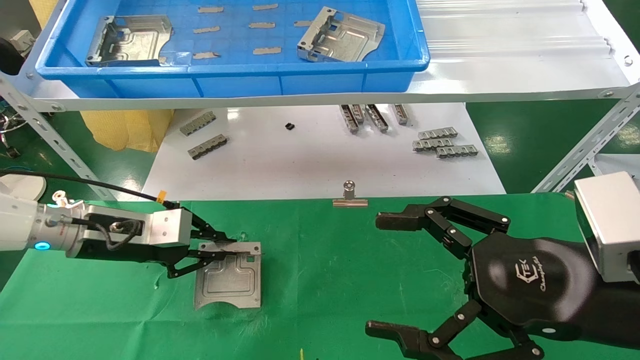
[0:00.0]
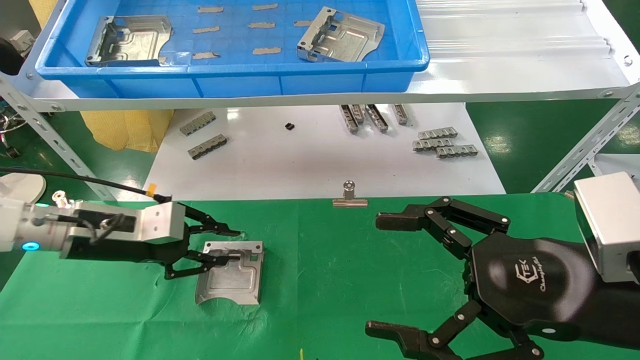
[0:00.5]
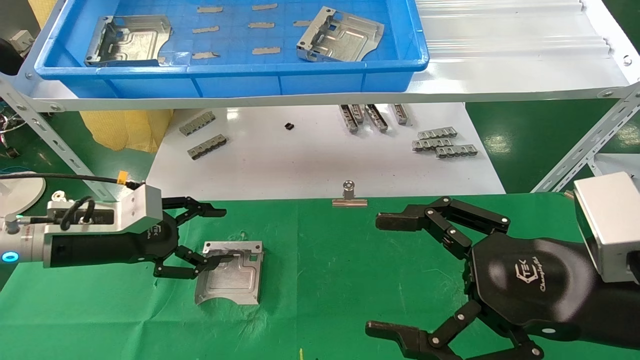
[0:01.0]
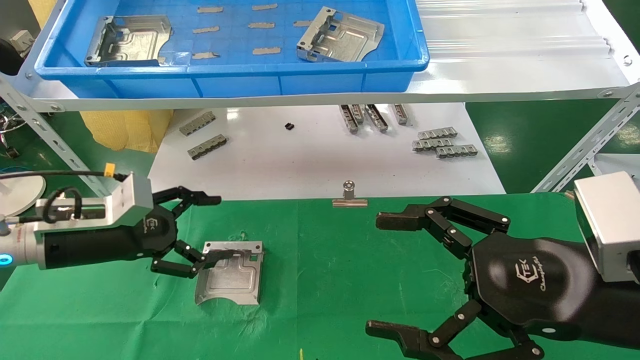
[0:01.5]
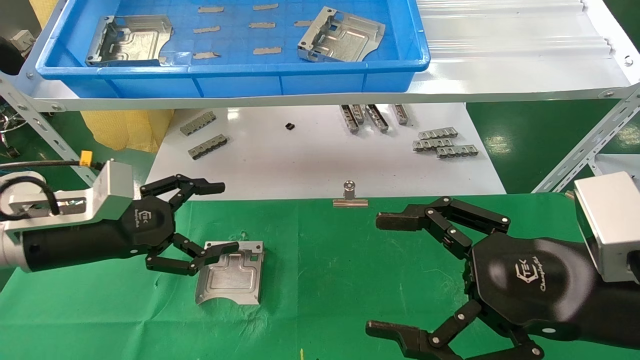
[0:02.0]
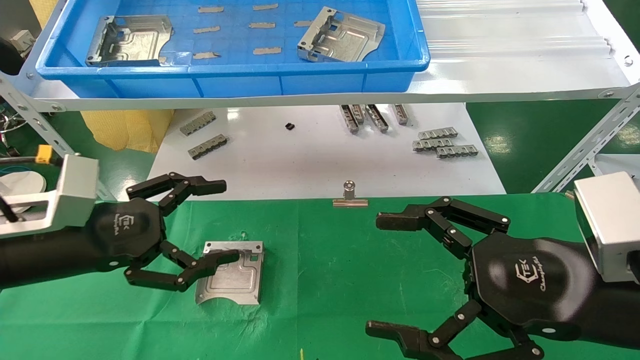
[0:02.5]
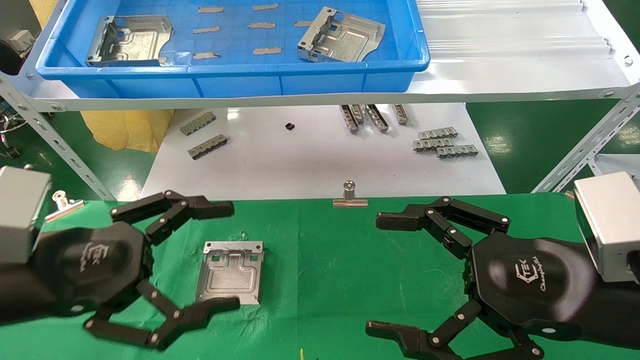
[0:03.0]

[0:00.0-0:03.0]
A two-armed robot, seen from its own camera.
Task of the whole recording: use the mechanical arm to pick up the parts and place them on the table.
0:00.0 to 0:01.5: The left gripper opens.
0:01.5 to 0:03.0: The left gripper goes roughly 15 cm backward.
